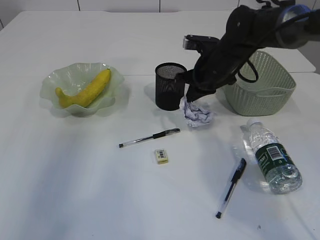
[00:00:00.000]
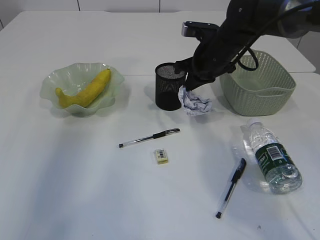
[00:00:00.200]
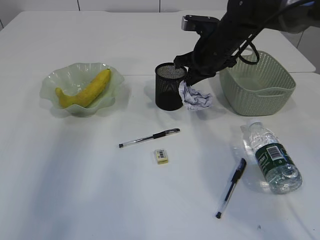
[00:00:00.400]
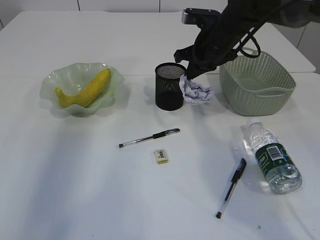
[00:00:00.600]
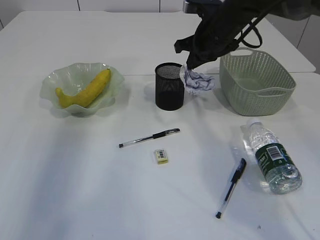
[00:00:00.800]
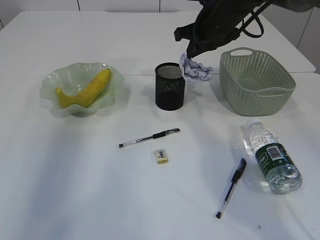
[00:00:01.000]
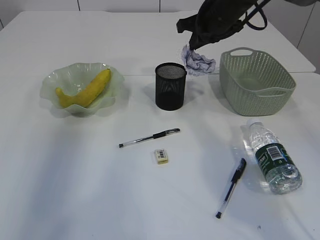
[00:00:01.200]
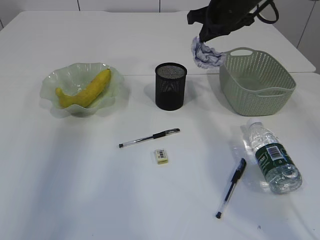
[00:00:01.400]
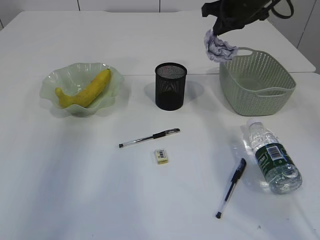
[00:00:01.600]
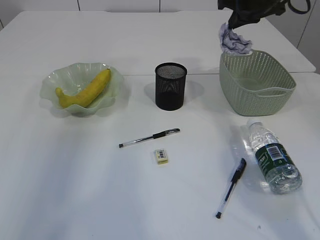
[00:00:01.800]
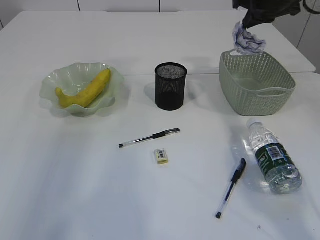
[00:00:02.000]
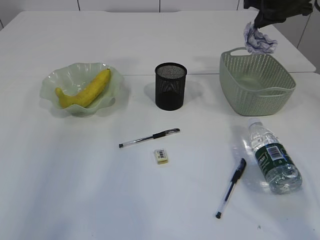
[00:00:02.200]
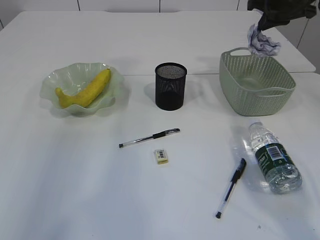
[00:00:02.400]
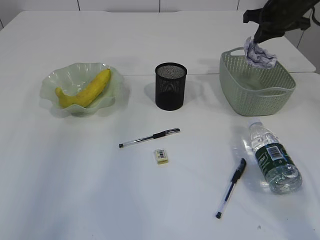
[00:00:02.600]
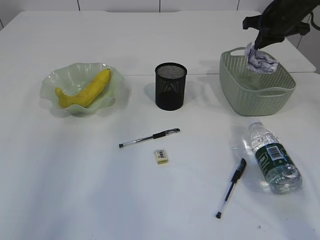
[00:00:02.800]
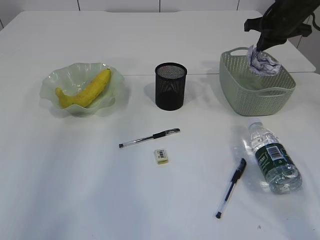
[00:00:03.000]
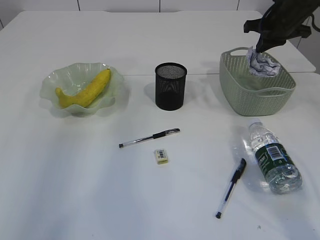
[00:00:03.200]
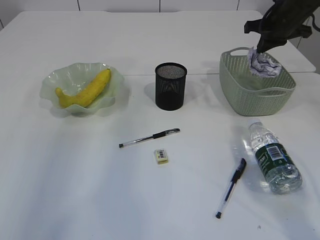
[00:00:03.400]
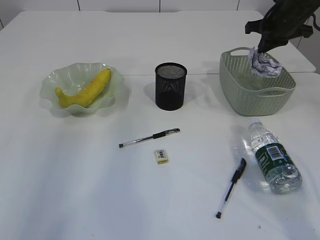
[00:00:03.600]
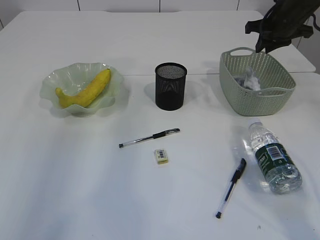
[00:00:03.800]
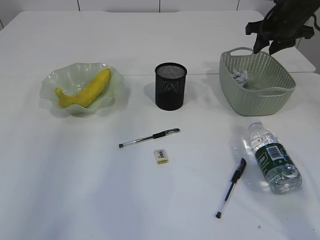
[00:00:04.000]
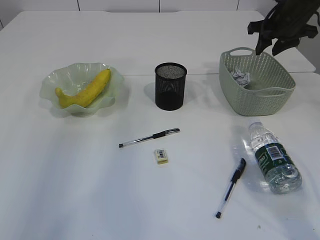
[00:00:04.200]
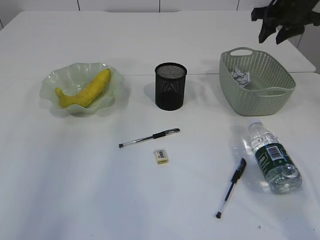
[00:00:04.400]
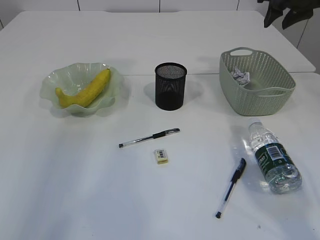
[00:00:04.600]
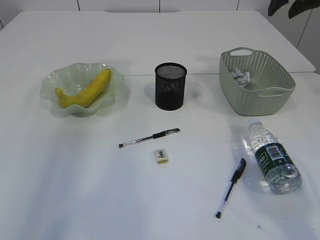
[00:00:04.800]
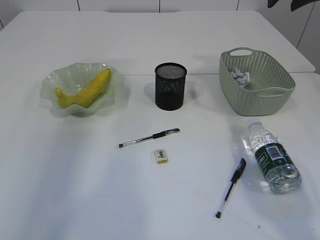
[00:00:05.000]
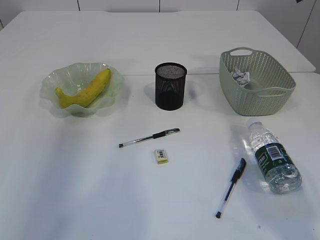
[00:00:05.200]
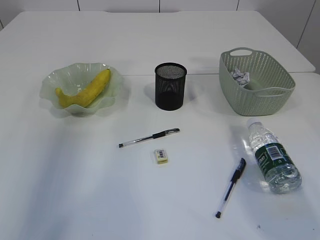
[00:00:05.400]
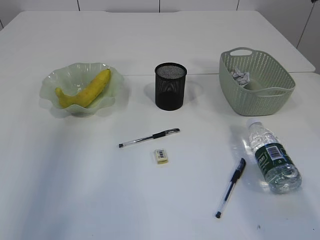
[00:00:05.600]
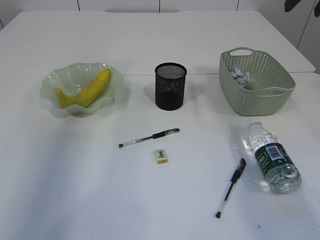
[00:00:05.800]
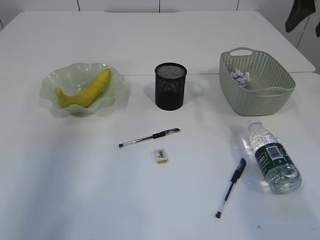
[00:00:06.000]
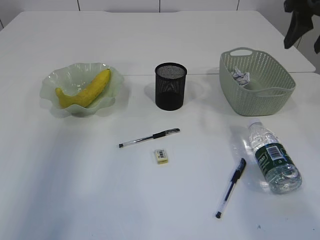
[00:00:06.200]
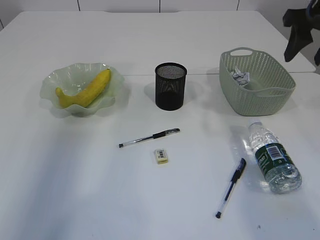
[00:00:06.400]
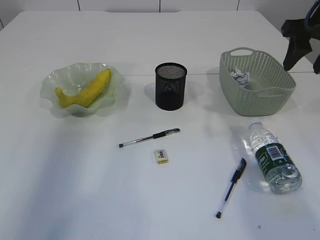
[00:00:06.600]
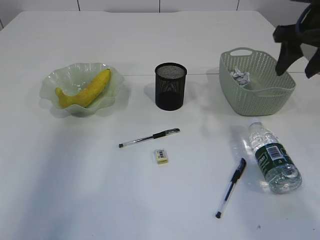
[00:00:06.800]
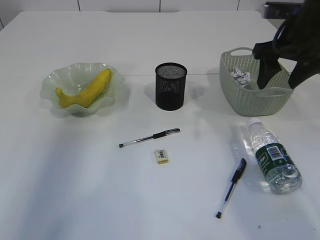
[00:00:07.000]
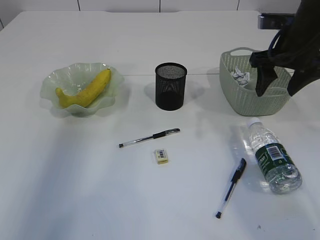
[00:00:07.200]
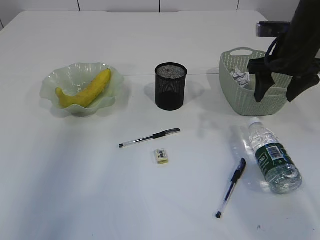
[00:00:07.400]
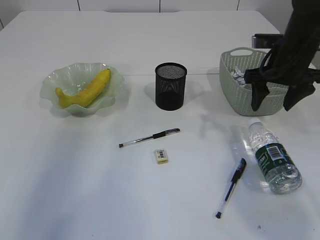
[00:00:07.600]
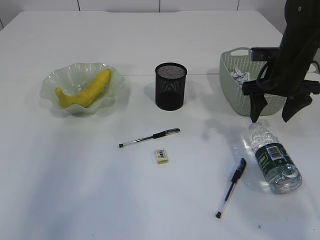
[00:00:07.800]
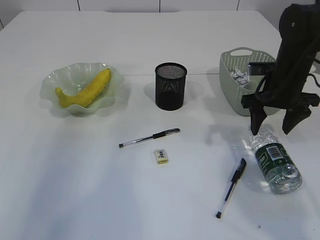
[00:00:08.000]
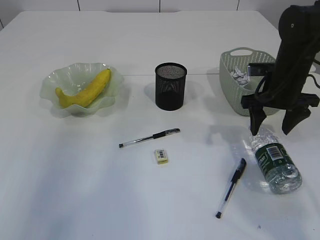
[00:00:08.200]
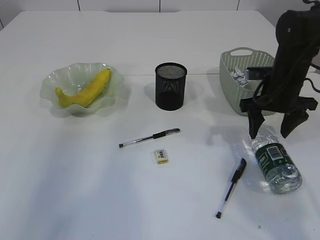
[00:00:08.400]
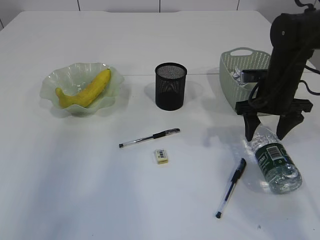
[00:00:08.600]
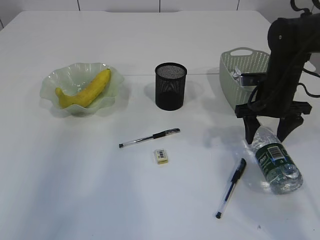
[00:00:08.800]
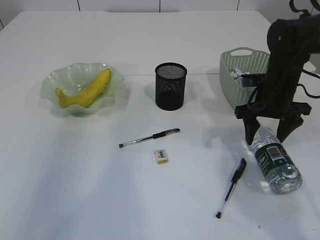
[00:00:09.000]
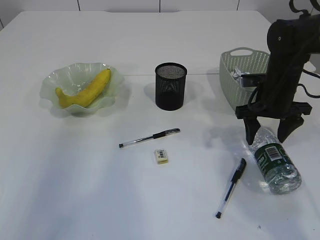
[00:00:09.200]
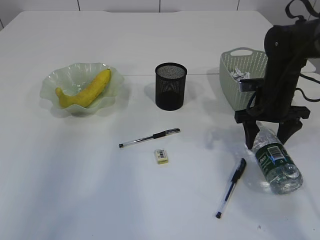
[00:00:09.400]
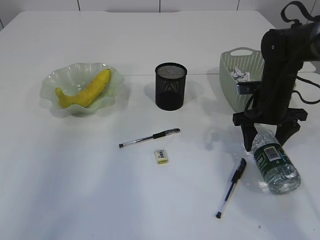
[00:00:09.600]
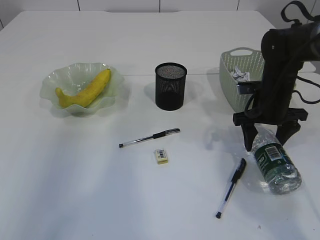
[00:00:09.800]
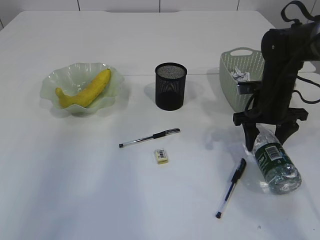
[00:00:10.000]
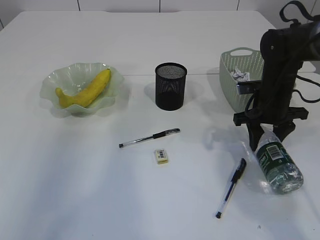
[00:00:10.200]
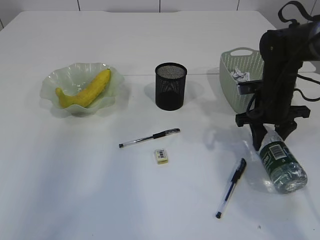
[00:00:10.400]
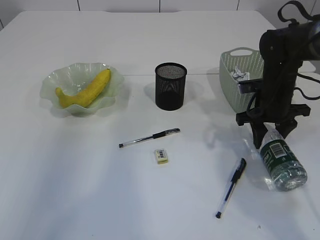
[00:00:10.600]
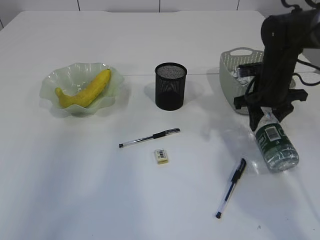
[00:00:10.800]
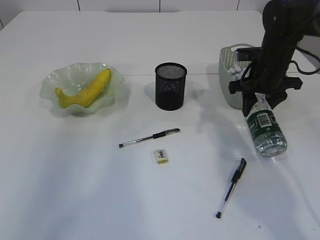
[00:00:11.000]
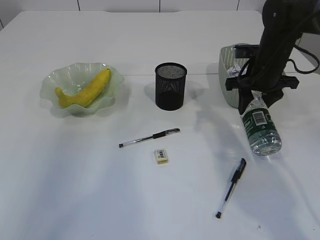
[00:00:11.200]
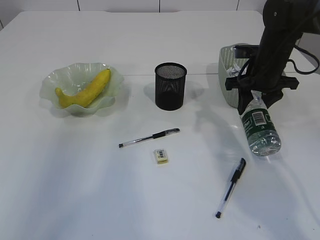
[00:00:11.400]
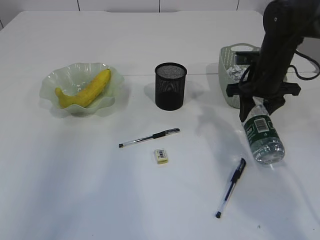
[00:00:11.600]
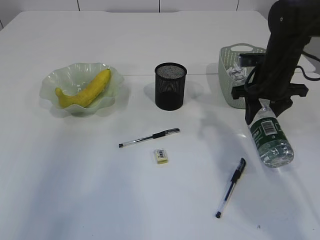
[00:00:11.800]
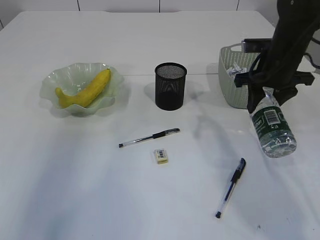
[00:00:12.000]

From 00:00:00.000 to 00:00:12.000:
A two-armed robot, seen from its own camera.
Step, from 00:00:00.400 to 00:00:04.400: Place the waste paper in the basket.
From 00:00:00.000 to 00:00:01.600: The right gripper moves upward and to the right, some 15 cm.
From 00:00:01.600 to 00:00:03.000: The right gripper heads to the right, covering roughly 10 cm.
From 00:00:03.000 to 00:00:04.400: The right gripper opens up.
From 00:00:04.400 to 00:00:06.000: The right gripper heads backward and upward, covering roughly 15 cm.
From 00:00:06.000 to 00:00:07.600: The right gripper goes approximately 15 cm downward.
From 00:00:07.600 to 00:00:09.000: The right gripper heads downward, covering roughly 5 cm.
From 00:00:09.000 to 00:00:10.400: The right gripper closes.
From 00:00:10.400 to 00:00:12.000: The right gripper is displaced upward by about 10 cm.

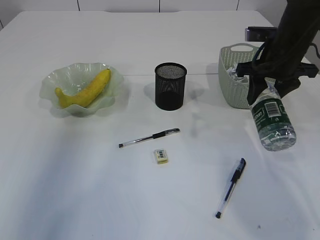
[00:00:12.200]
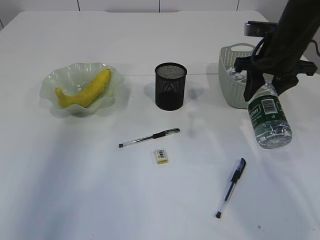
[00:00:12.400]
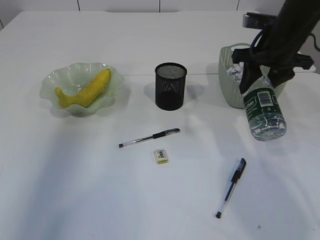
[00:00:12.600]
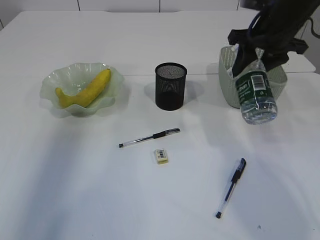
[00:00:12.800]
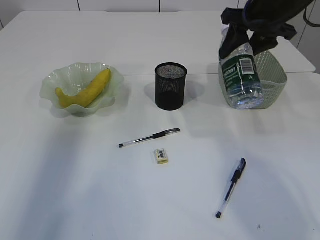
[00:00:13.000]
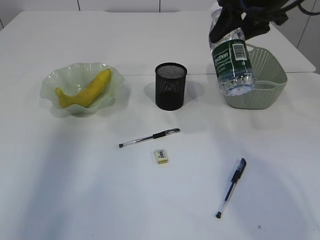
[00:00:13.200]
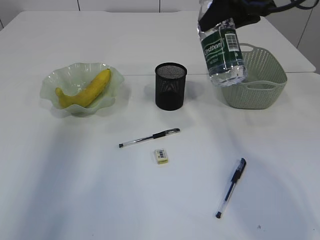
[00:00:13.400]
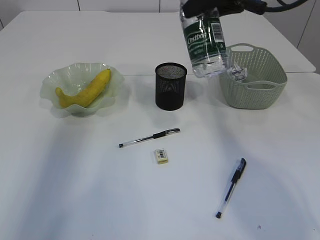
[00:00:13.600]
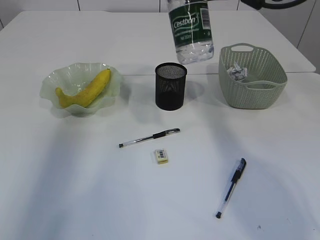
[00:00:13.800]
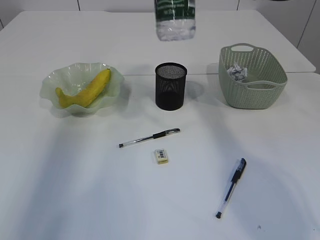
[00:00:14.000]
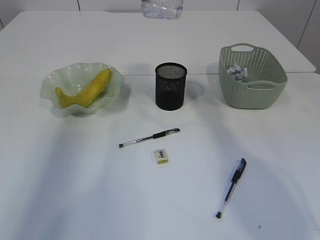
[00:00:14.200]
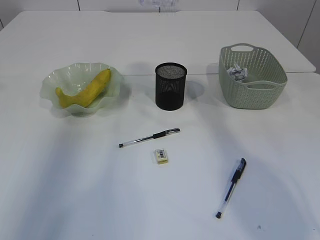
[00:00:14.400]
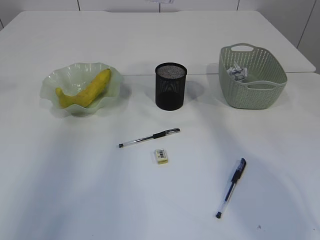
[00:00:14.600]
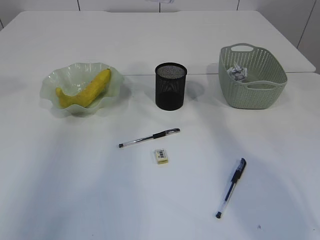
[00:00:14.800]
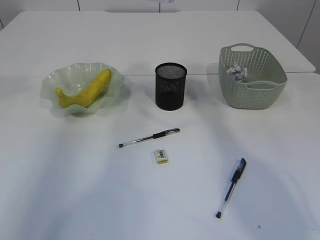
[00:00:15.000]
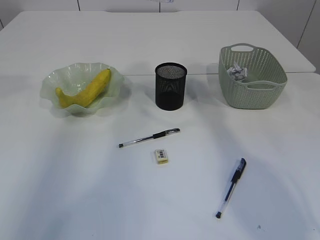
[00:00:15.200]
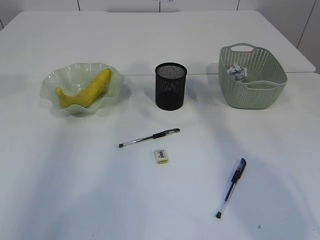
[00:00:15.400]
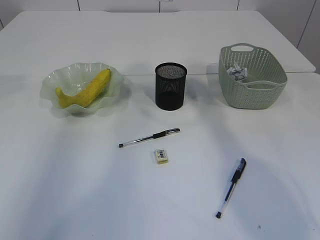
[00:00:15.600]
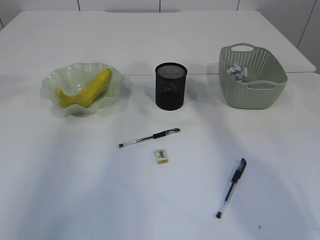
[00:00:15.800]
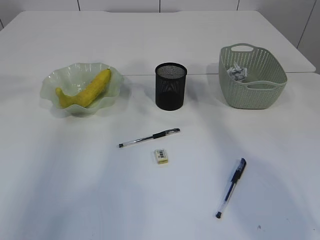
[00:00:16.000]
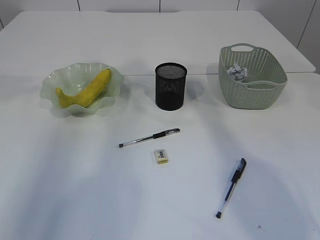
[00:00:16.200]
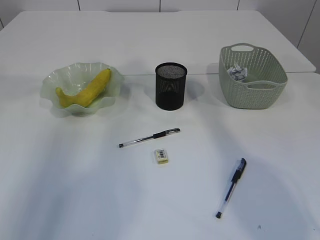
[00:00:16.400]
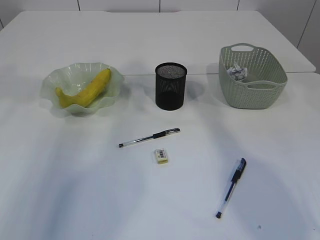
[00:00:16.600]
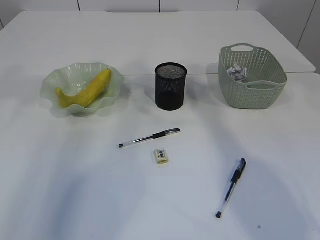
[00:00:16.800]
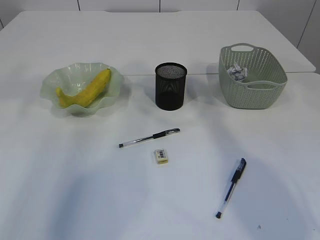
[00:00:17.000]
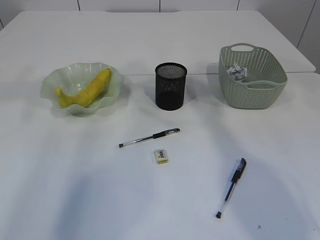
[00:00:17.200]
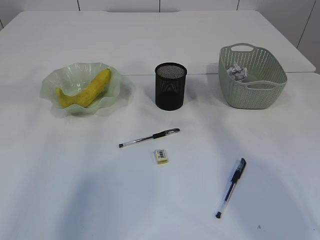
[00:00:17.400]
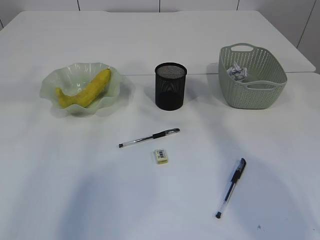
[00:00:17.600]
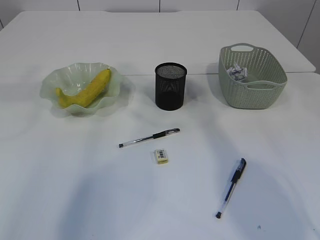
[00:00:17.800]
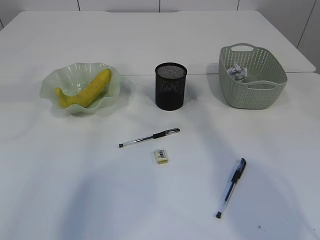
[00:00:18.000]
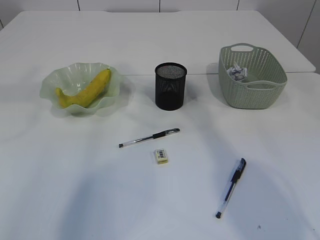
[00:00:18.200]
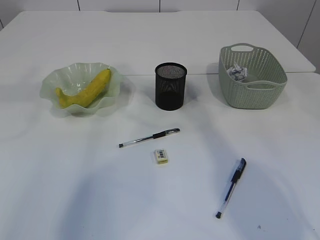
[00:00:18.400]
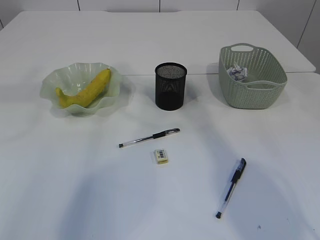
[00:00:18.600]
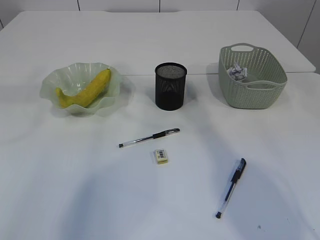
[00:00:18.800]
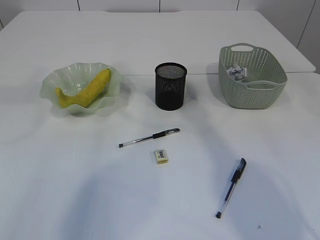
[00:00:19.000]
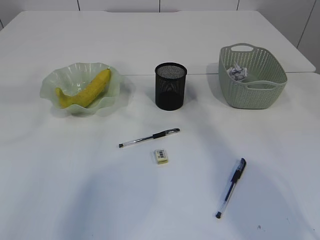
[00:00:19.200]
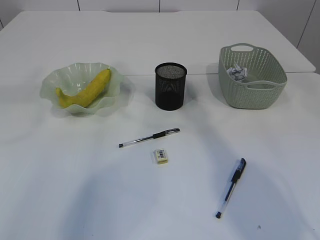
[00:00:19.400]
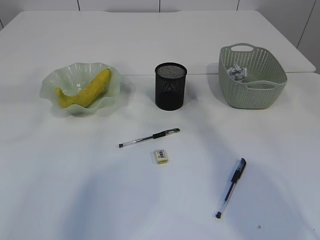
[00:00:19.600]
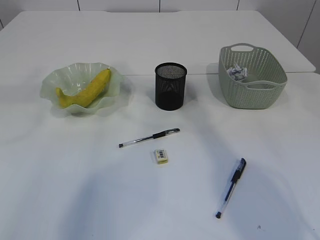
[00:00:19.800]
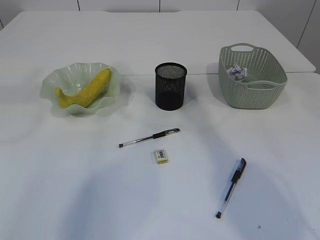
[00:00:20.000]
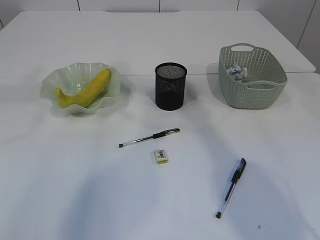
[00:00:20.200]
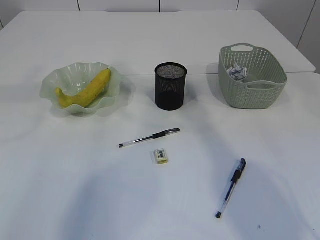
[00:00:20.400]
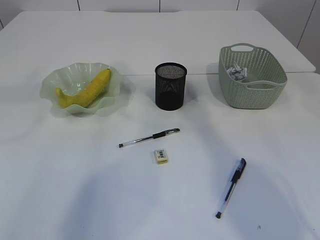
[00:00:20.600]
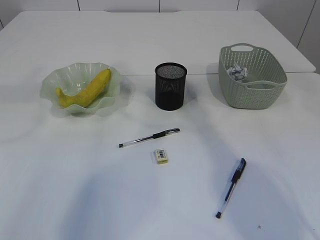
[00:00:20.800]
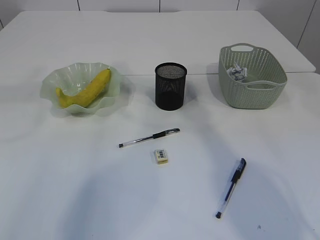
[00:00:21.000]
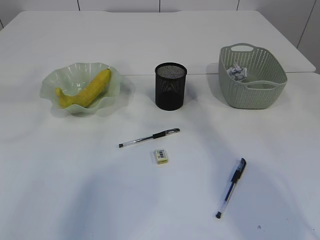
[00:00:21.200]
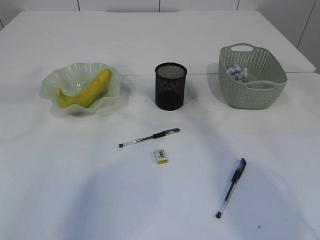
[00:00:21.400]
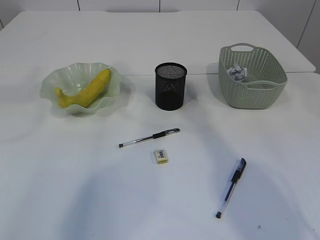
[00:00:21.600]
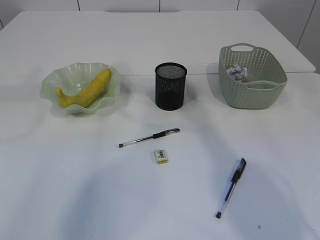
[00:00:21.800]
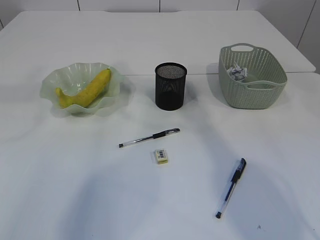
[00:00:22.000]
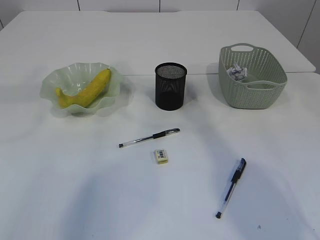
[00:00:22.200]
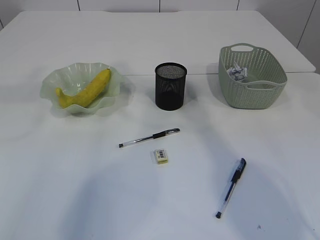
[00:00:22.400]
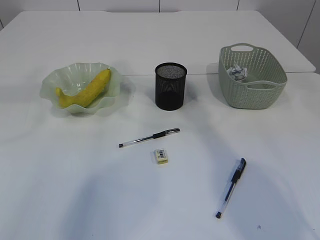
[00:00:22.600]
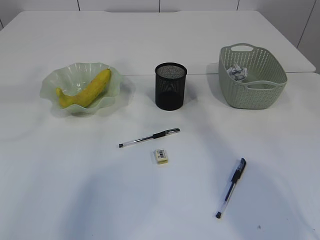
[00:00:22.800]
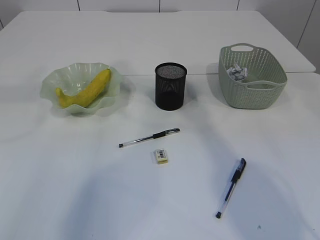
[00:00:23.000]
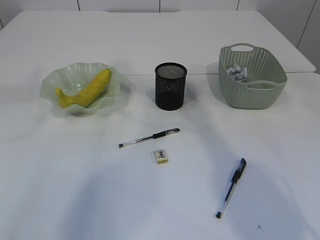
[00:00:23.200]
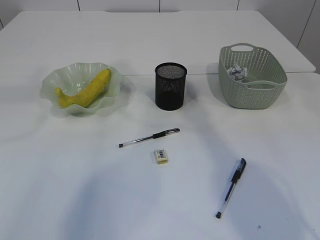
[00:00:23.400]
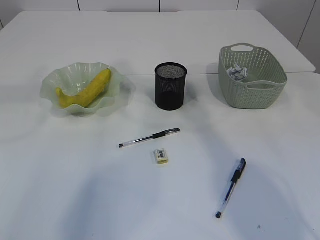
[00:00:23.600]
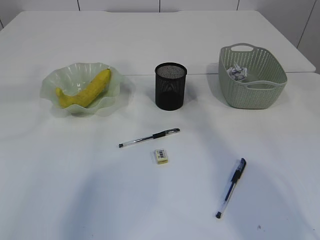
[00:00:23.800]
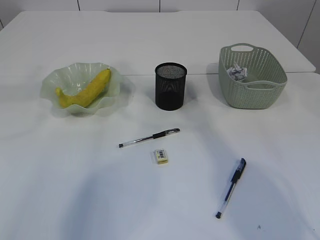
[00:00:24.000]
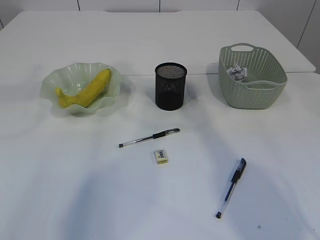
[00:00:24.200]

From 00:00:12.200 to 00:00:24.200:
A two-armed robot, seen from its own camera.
From 00:00:12.200 to 00:00:13.800: The right gripper heads upward and to the left, covering about 15 cm.
From 00:00:13.800 to 00:00:15.200: The left gripper travels to the right by some 5 cm.
From 00:00:16.600 to 00:00:18.200: The left gripper travels to the right by some 10 cm.
